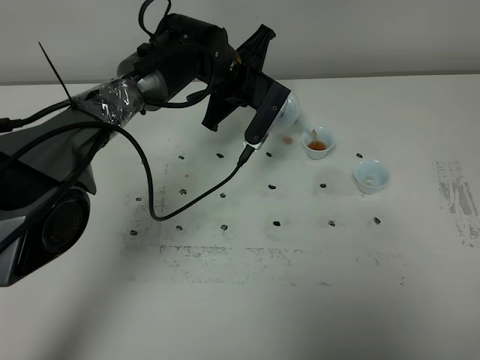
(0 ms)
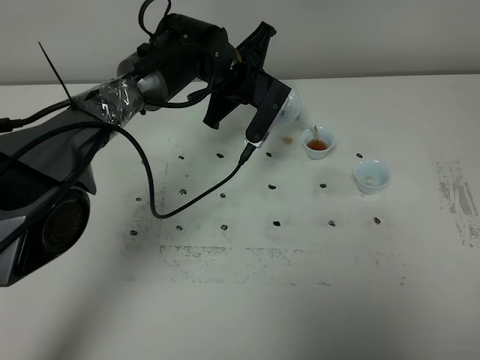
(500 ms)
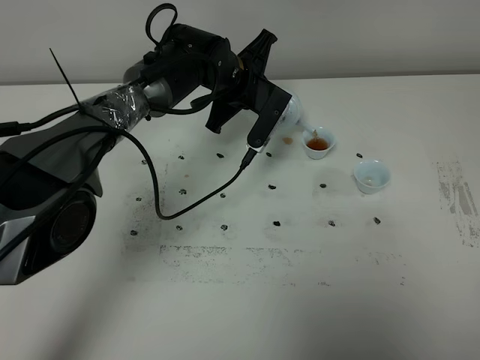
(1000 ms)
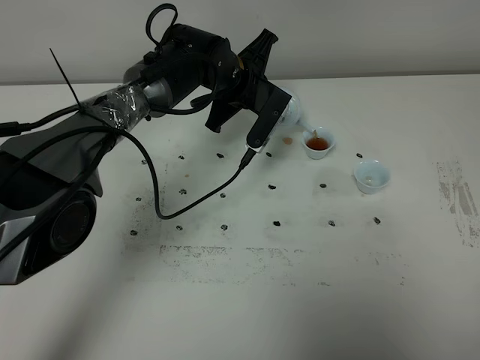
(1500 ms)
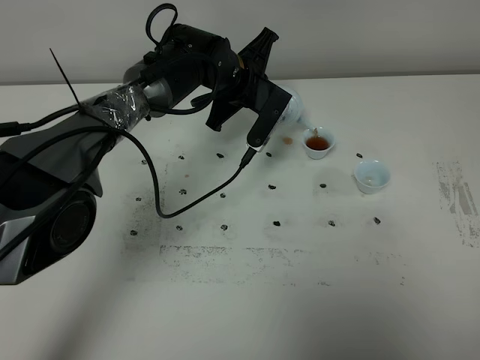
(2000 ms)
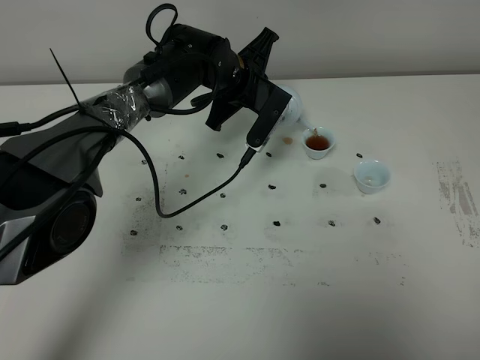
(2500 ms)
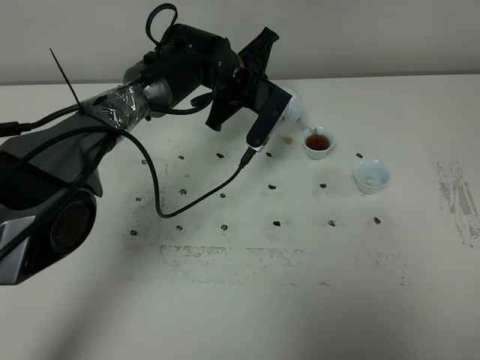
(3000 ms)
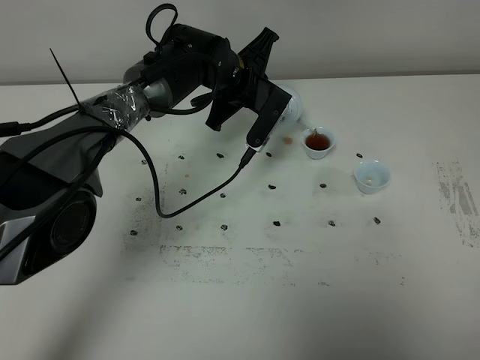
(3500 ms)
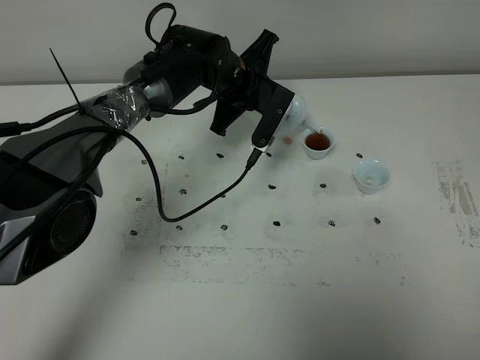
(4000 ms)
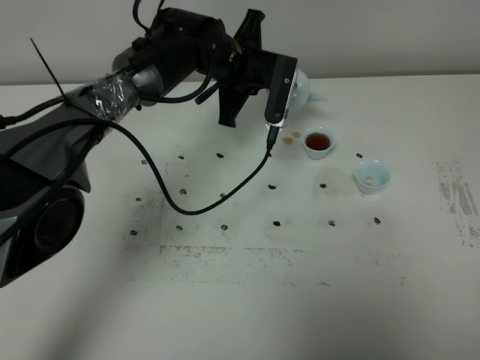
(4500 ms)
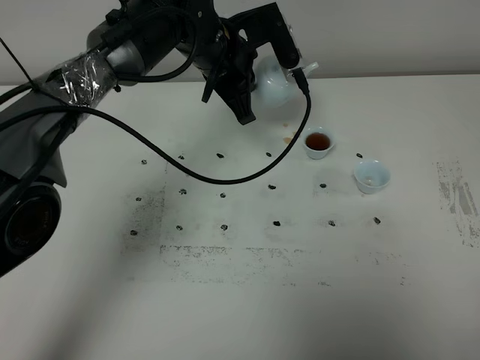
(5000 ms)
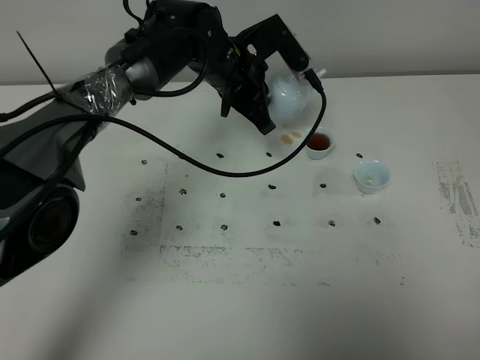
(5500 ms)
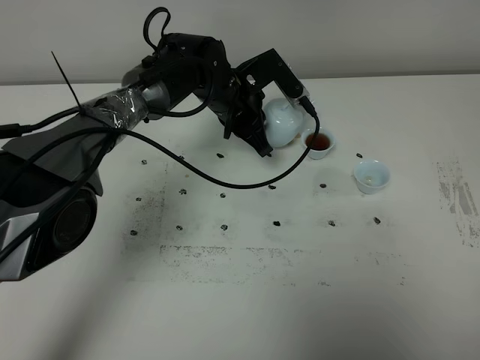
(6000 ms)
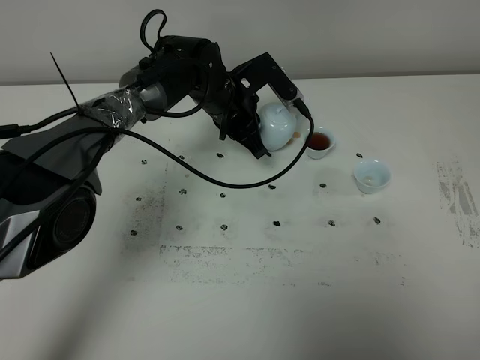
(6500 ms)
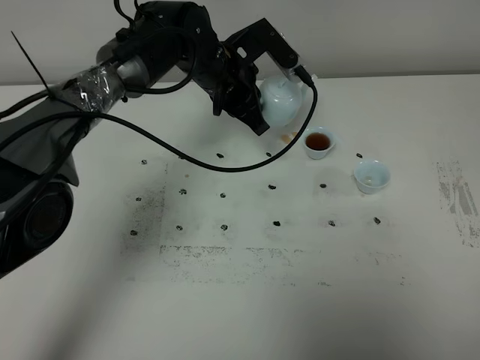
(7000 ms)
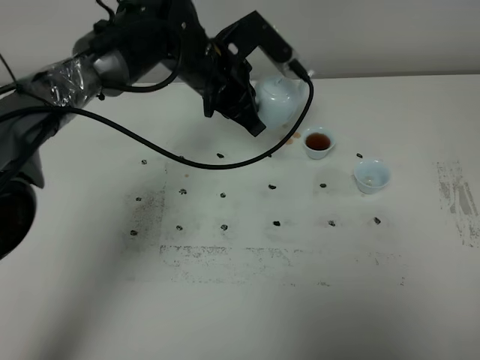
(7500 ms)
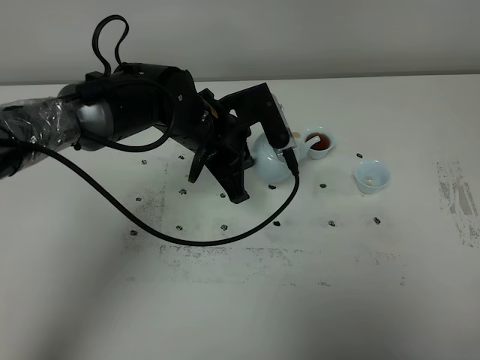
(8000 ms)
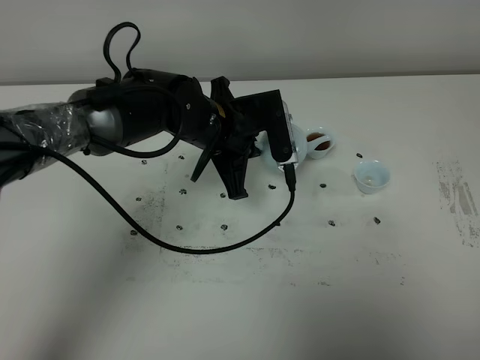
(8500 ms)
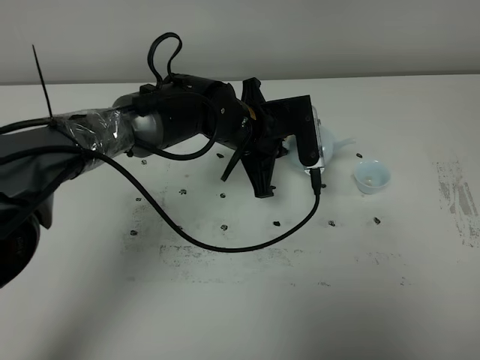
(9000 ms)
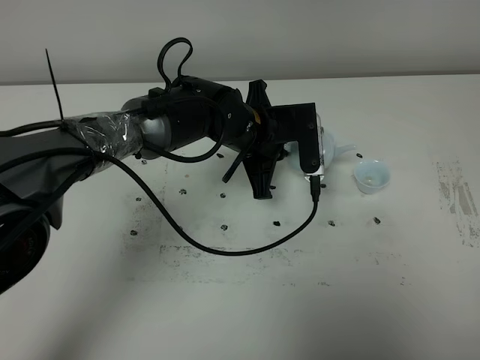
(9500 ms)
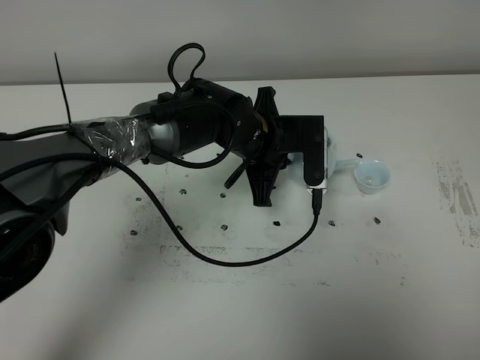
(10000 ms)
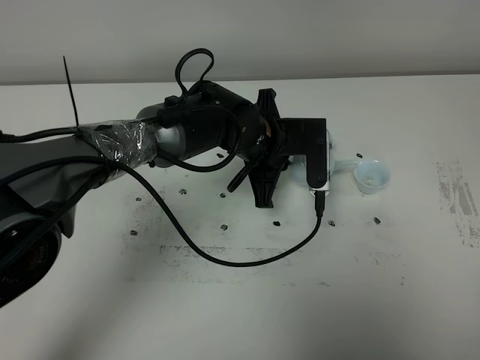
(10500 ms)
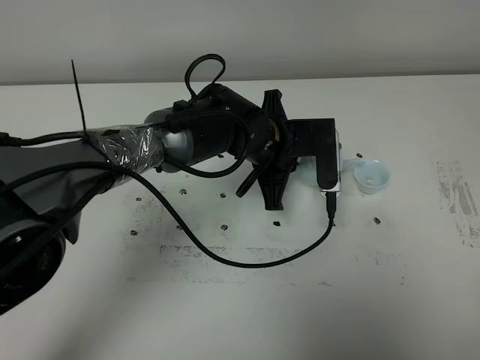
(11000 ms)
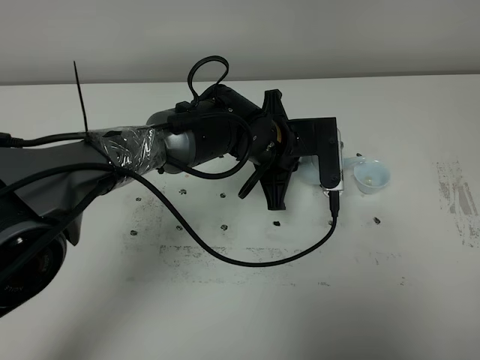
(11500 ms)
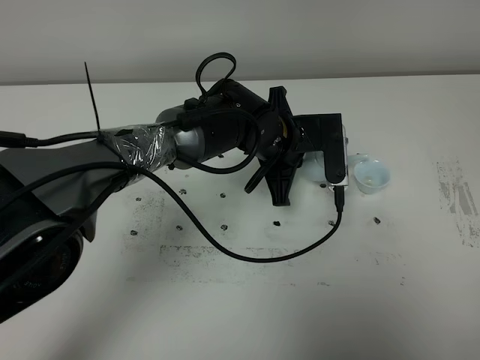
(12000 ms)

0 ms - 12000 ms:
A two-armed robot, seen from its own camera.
Task of the whole recording: grasp the blue porcelain teapot and pour the tea into the two blue porcelain teacups one by one, put the blue porcelain teapot back in its original place.
Step, 0 ms - 4500 ms: Pour tea into the teacup with the left gripper.
0 ms - 4000 ms: Both grippers stay about where they are.
4000 ms - 6000 ms: The left gripper reaches about 5 cm upward, then returns.
6000 ms - 8000 ms: The left gripper is displaced backward by approximately 10 cm.
8000 ms - 10000 ms: The left gripper shifts roughly 5 cm to the right.
10000 ms - 12000 ms: There are only small adjustments of the grippers.

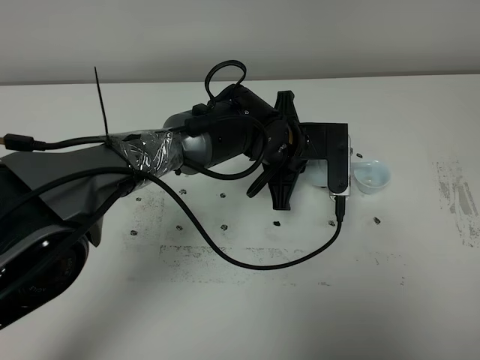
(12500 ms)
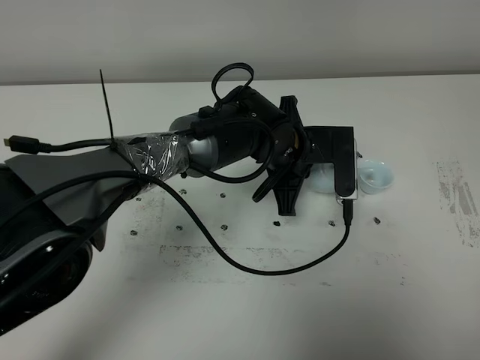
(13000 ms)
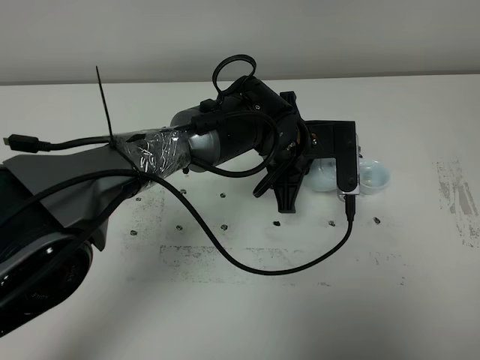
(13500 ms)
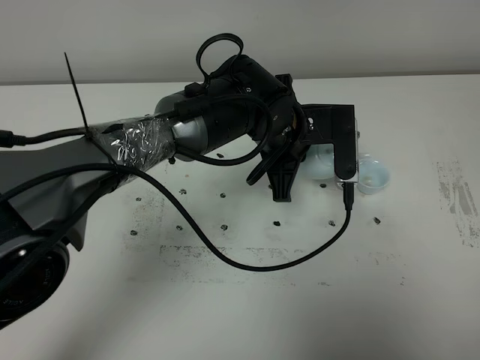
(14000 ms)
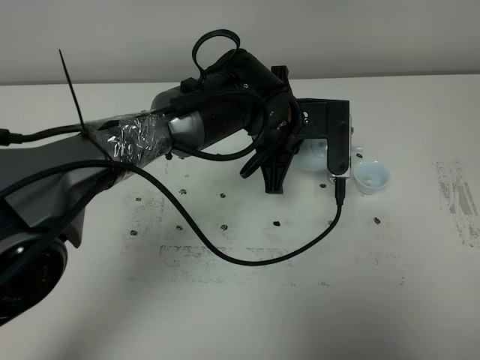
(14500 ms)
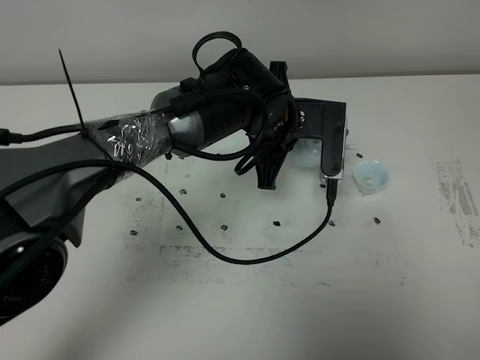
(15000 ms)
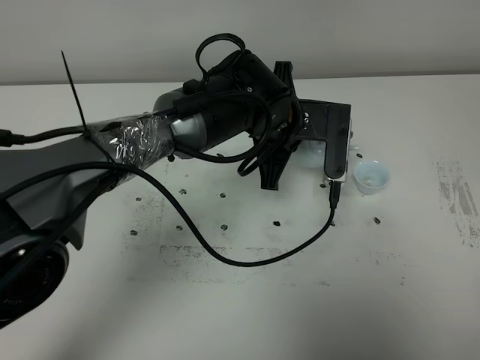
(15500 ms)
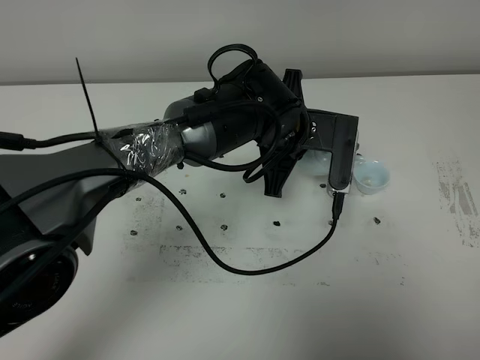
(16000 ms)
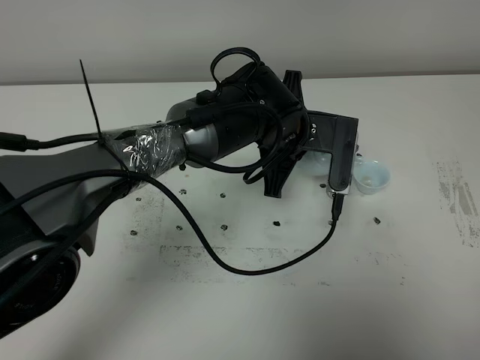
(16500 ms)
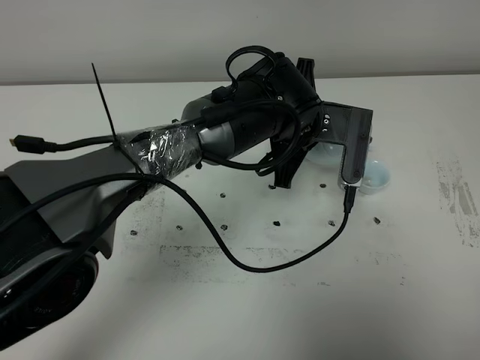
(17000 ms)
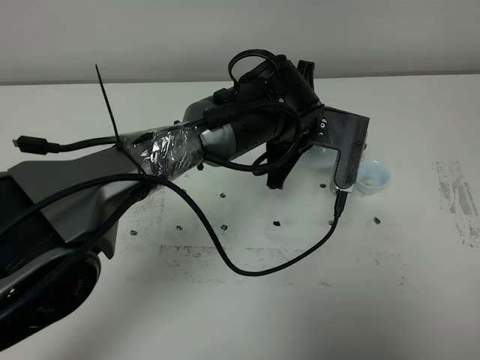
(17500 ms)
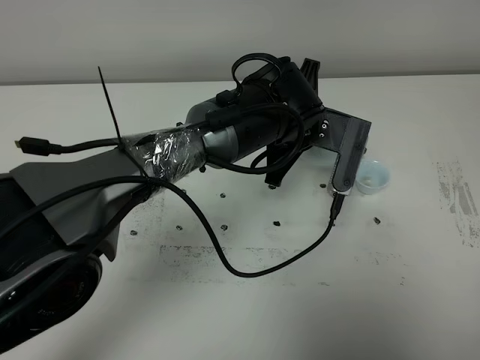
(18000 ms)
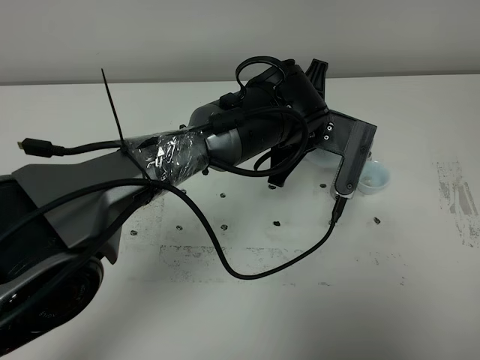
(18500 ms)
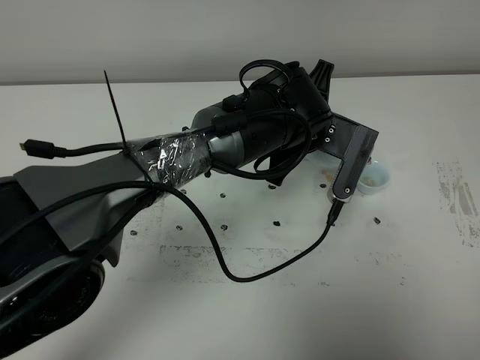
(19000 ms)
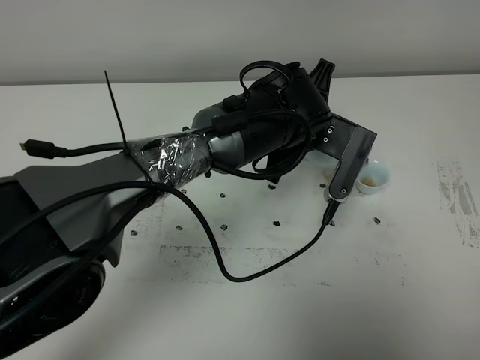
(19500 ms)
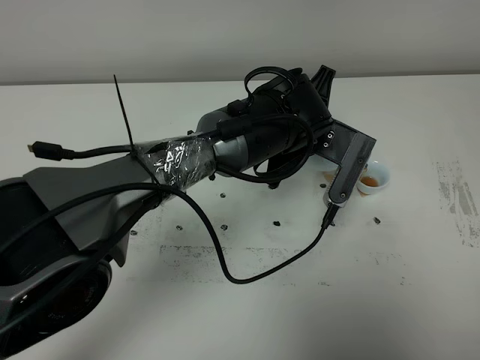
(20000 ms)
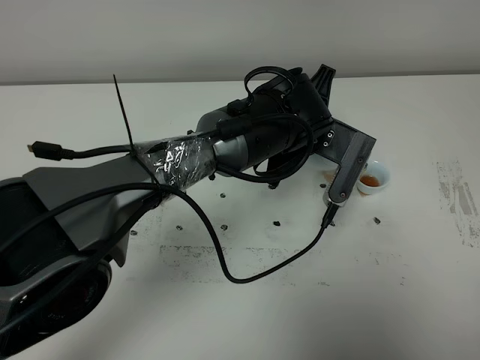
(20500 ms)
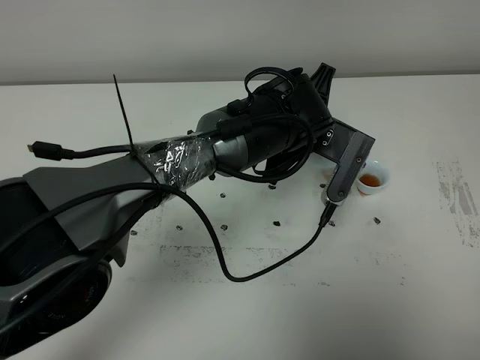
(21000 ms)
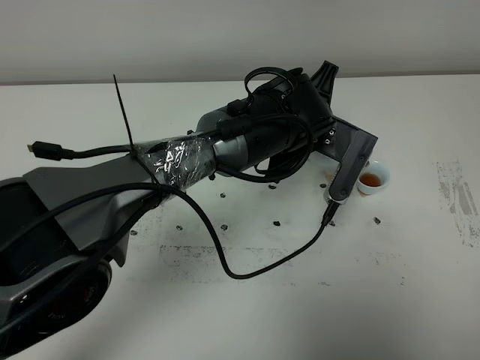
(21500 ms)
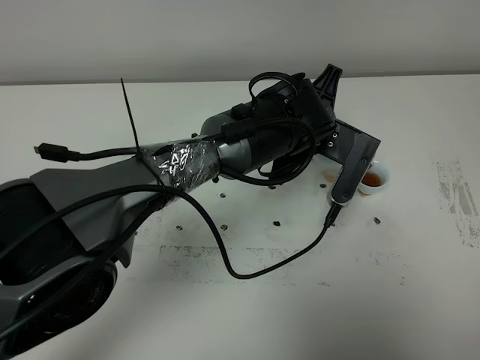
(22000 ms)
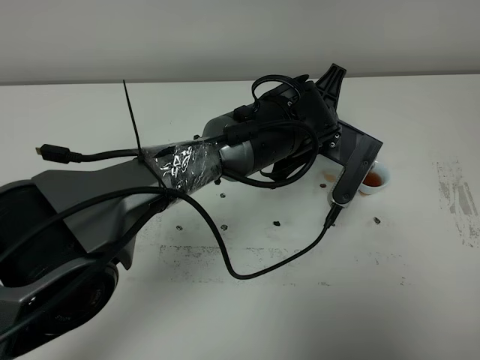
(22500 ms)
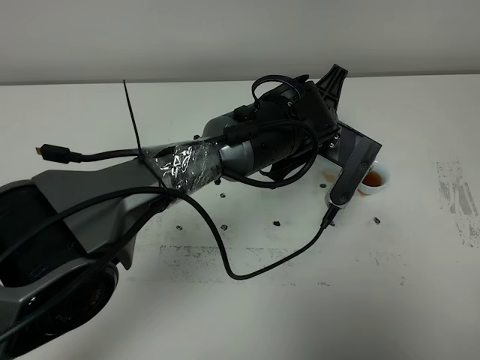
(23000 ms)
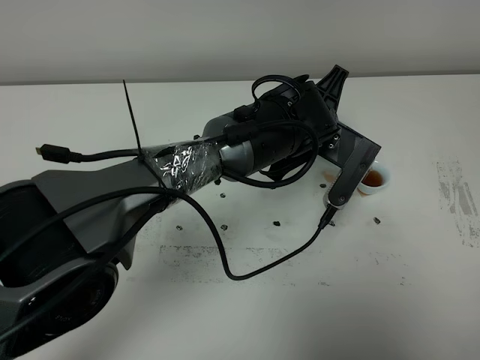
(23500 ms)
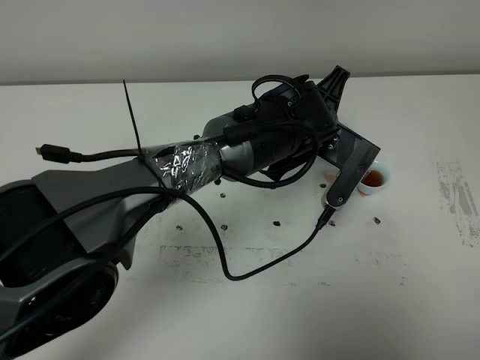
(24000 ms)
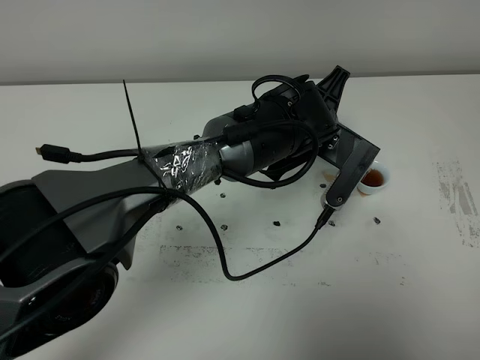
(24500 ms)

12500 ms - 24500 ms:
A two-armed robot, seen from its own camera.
Task of the whole recording: grasp the blue porcelain teapot and pour the tea into the two blue porcelain teacups one by one, put the blue porcelain teapot back in its original place.
12500 ms - 16500 ms: The grippers stay close to where they were, moving slightly.
16500 ms - 20500 ms: The grippers make only small movements.
20500 ms - 22500 ms: Neither gripper changes place.
22500 ms - 24500 ms: Both grippers stay put.

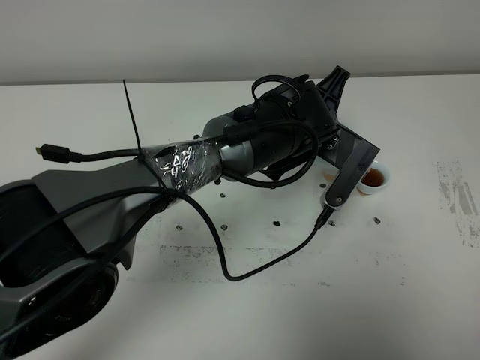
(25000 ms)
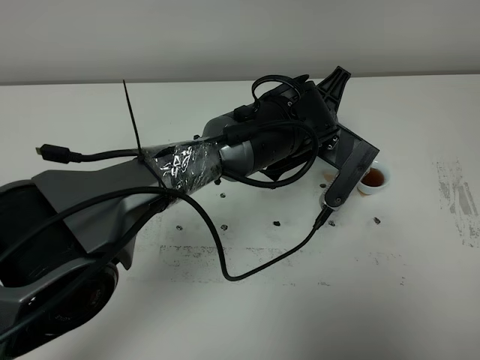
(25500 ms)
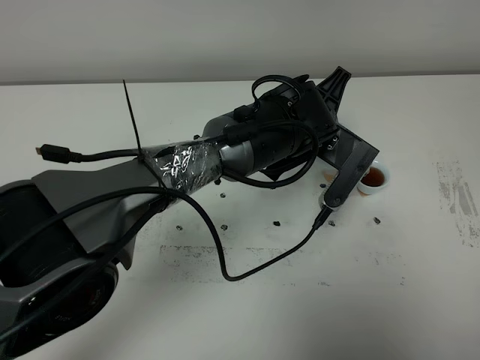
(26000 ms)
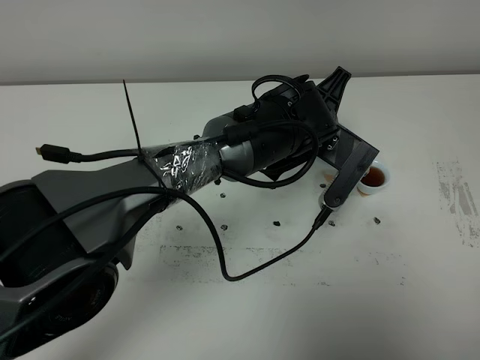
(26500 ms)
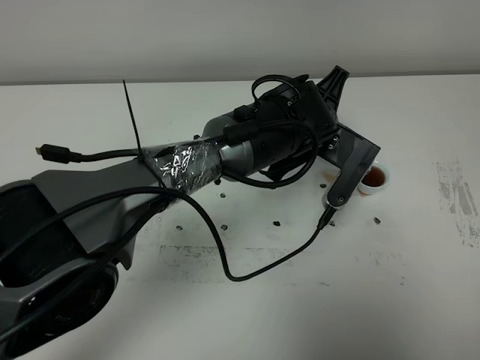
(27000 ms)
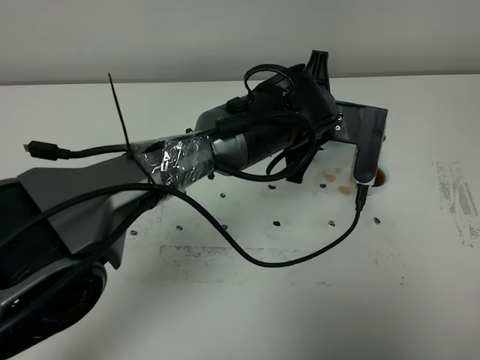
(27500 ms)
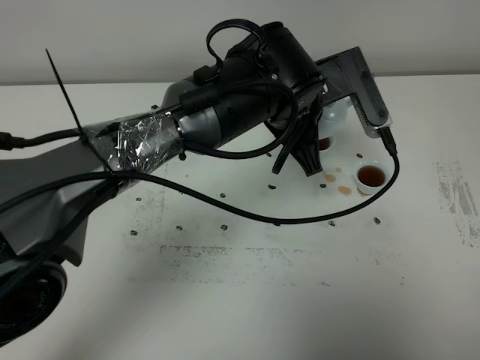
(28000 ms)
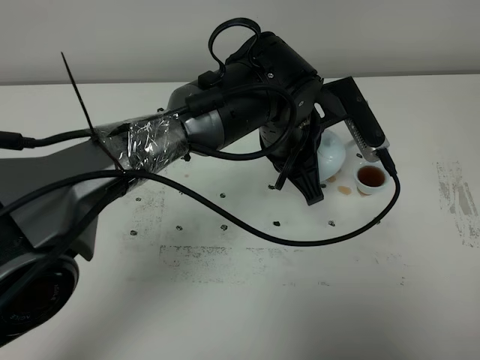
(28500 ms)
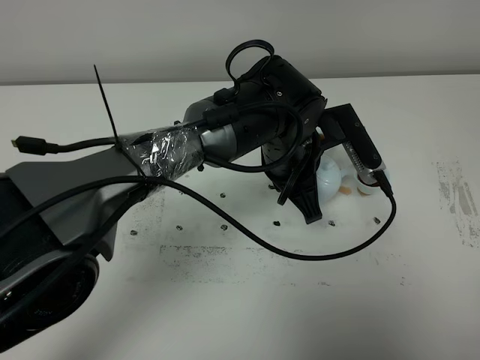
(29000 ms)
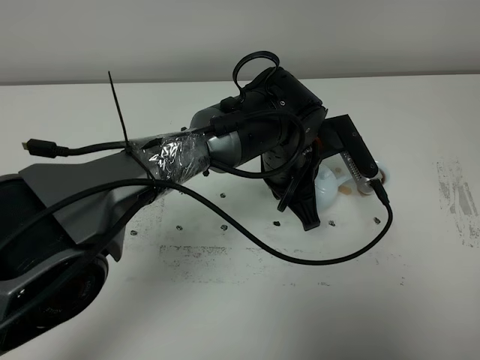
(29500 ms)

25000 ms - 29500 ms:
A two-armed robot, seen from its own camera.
Task of the whole recording: grasp the blue porcelain teapot and pour the tea into the two blue porcelain teacups one by one, put the blue porcelain teapot back in its original place.
Step, 25000 ms - 27500 ms: Pour tea into the teacup with the left gripper.
25000 ms - 27000 ms: Both grippers stay about where they are.
